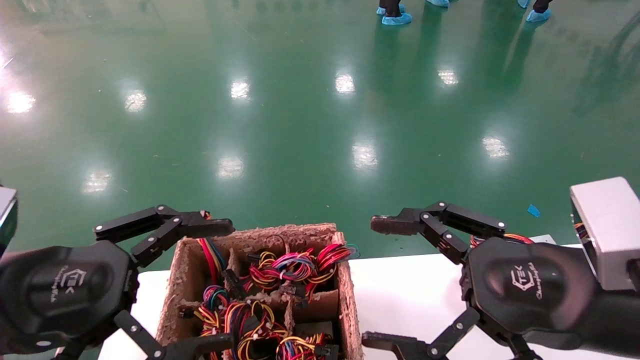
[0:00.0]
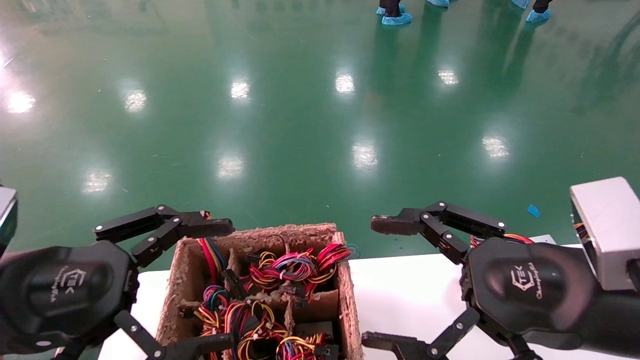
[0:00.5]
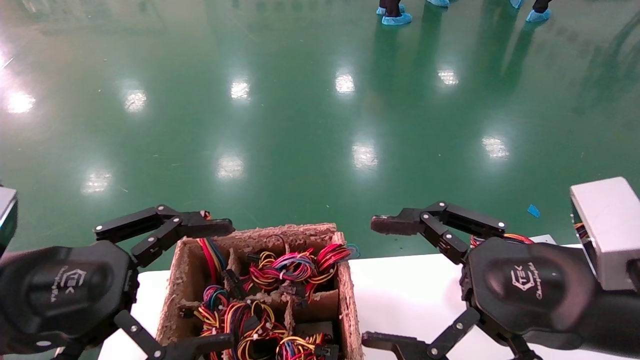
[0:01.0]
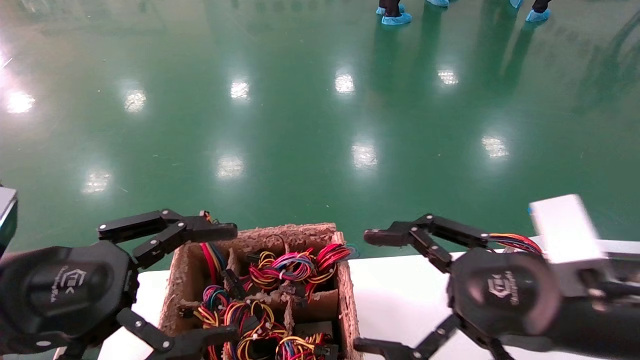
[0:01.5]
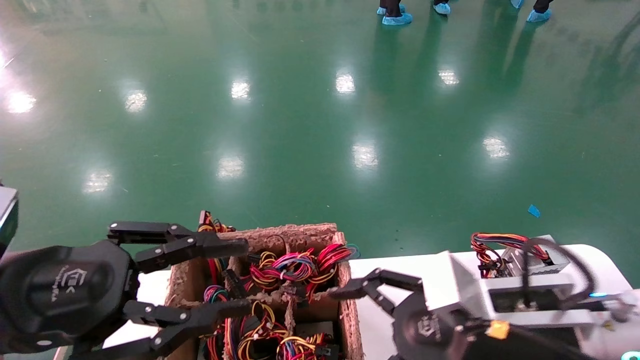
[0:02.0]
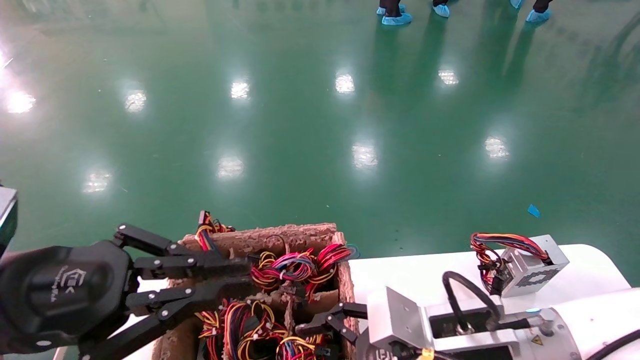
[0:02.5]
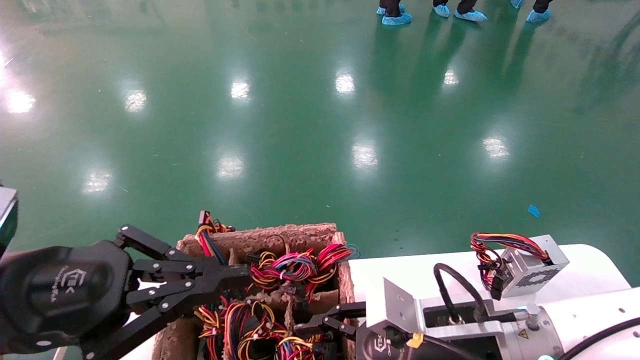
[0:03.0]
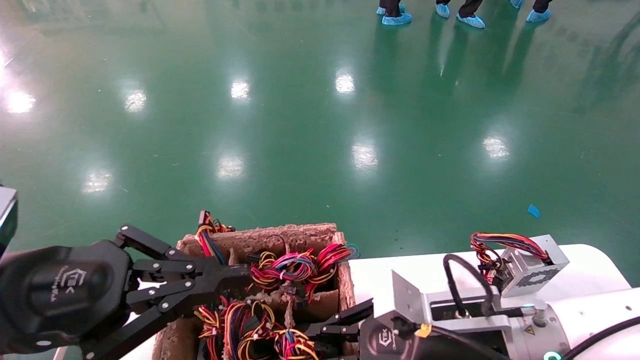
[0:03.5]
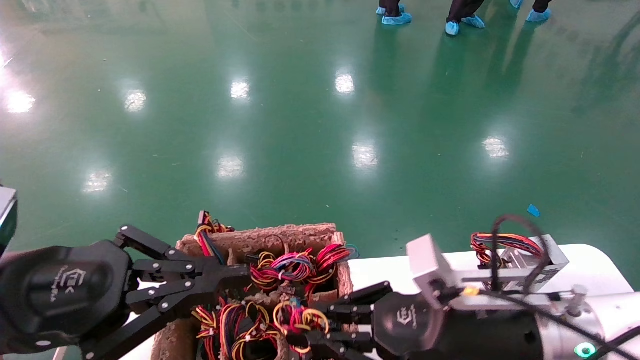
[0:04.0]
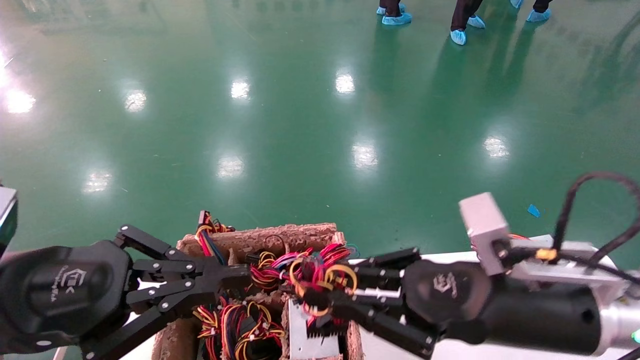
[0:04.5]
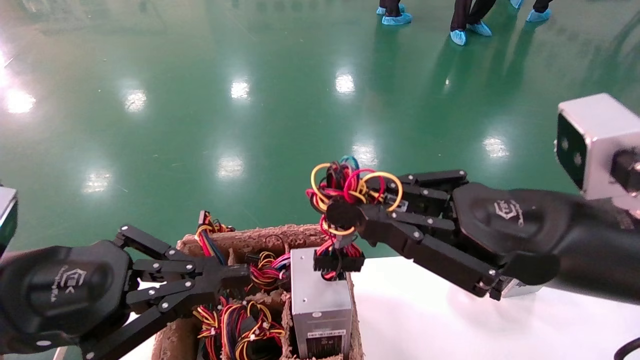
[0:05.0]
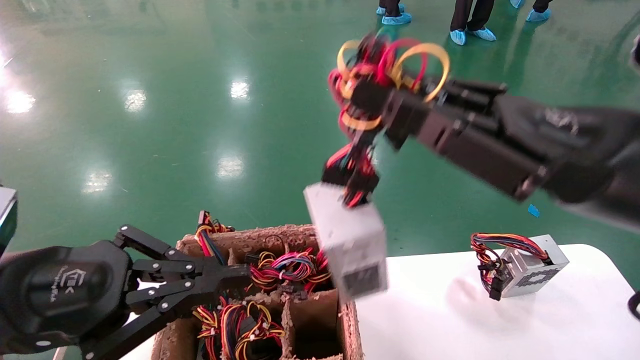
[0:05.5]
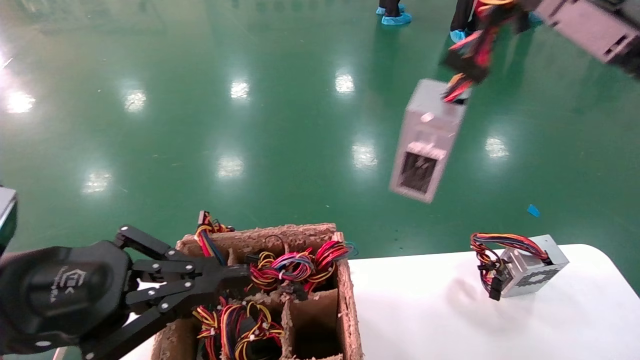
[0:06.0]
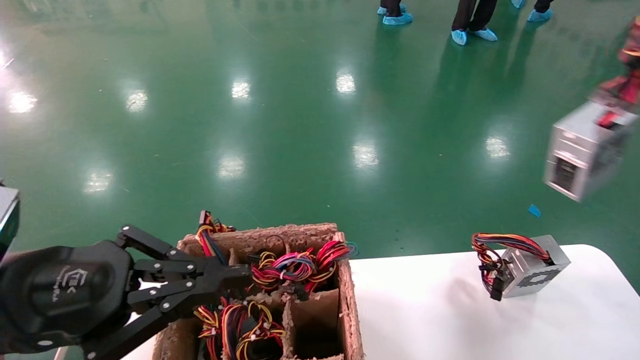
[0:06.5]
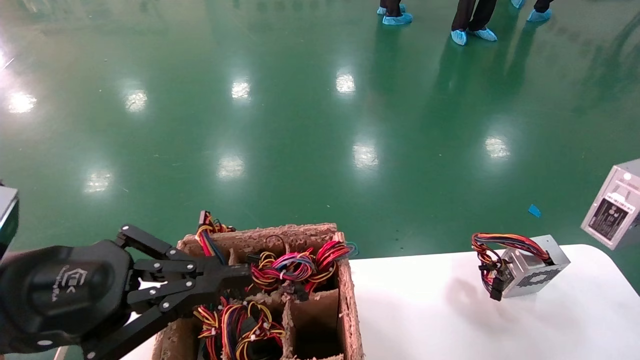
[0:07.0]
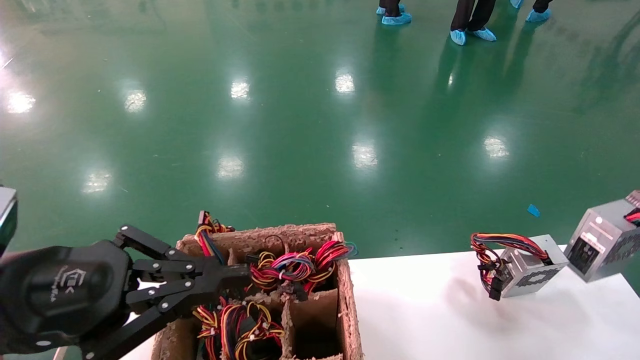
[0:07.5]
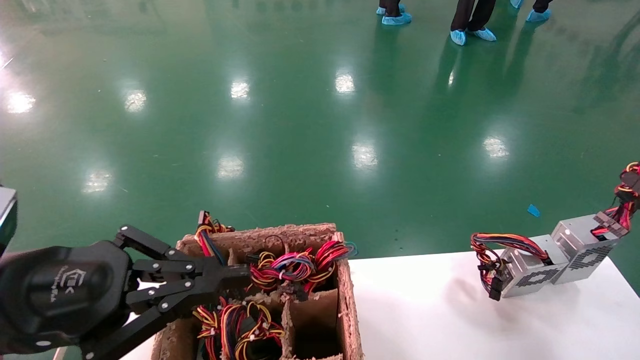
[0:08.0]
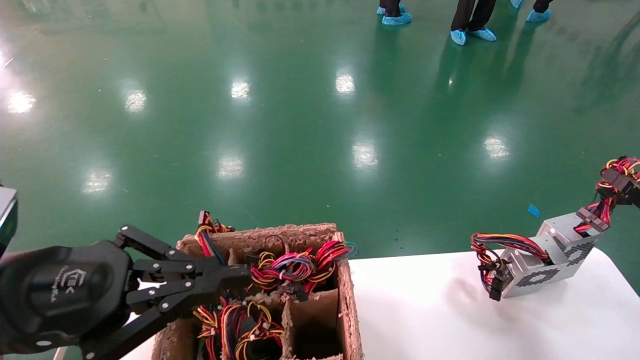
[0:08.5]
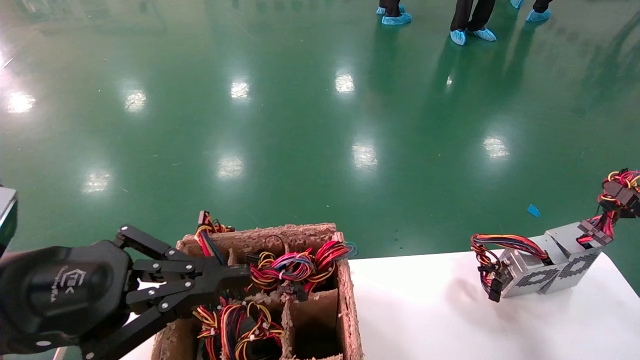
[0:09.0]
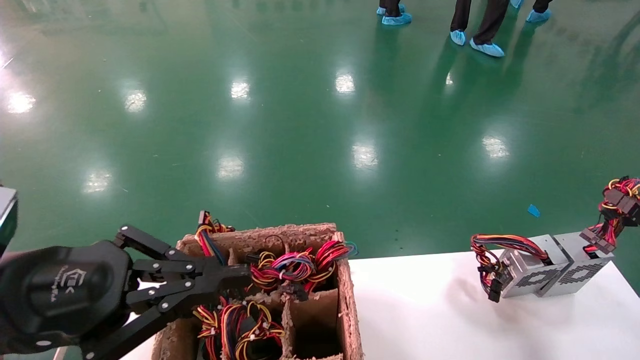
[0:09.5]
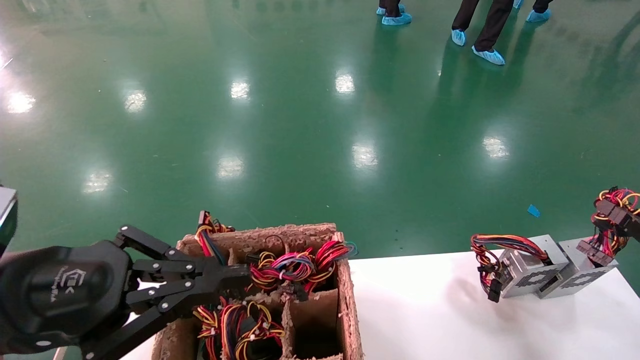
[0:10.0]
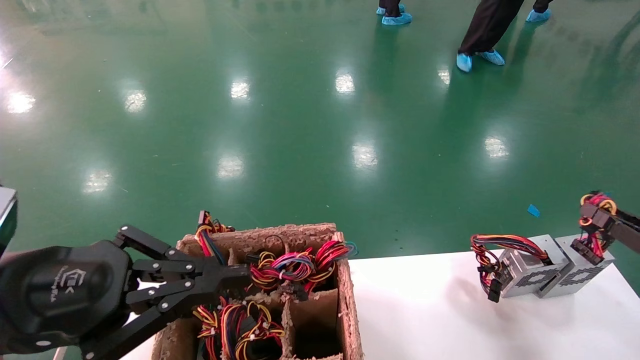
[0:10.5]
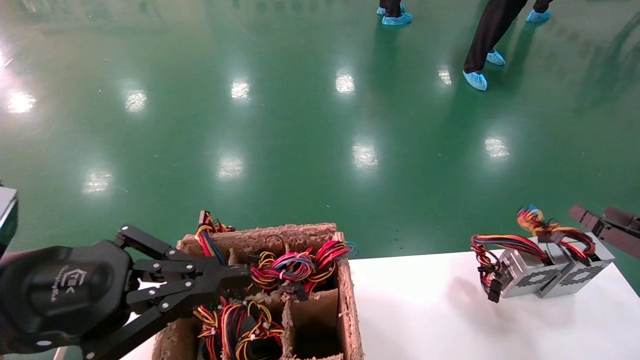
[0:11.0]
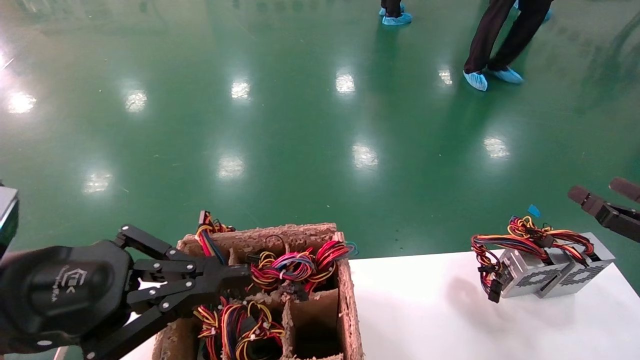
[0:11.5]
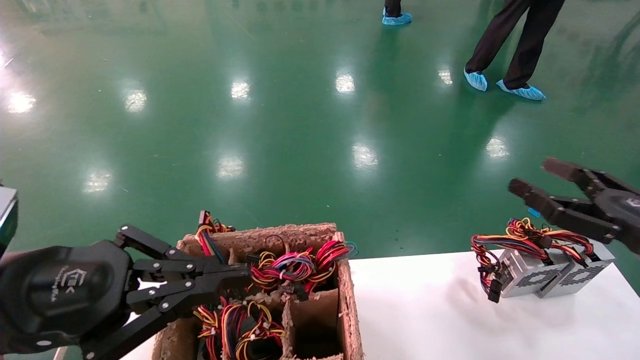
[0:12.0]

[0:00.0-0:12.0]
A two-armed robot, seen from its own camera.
Step, 0:02.0 to 0:03.5: Grab the main unit power supply from the containment box.
Step, 0:04.0 to 0:10.0: Place the main unit power supply in the designated area.
0:00.0 to 0:02.0: The right gripper shifts roughly 5 cm downward, while the left gripper closes up.
0:02.0 to 0:04.0: The right gripper closes; the left gripper closes up.
0:04.0 to 0:06.0: The right gripper shifts approximately 25 cm upward and to the right.
0:06.0 to 0:08.0: The right gripper is displaced to the right and downward by some 25 cm.
0:08.0 to 0:10.0: There are only small adjustments of the grippers.
0:10.0 to 0:12.0: The right gripper heads to the left and upward, covering approximately 15 cm, and opens.

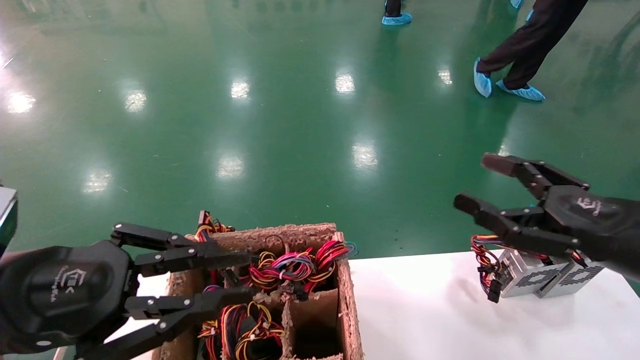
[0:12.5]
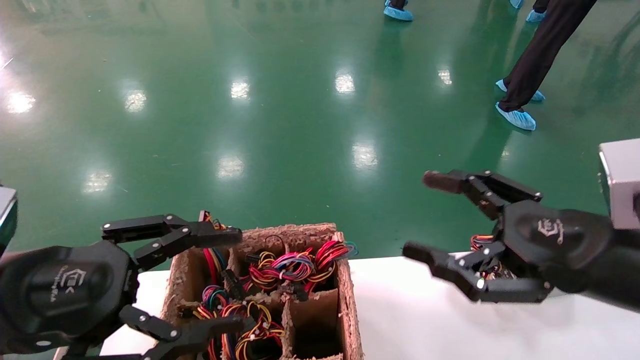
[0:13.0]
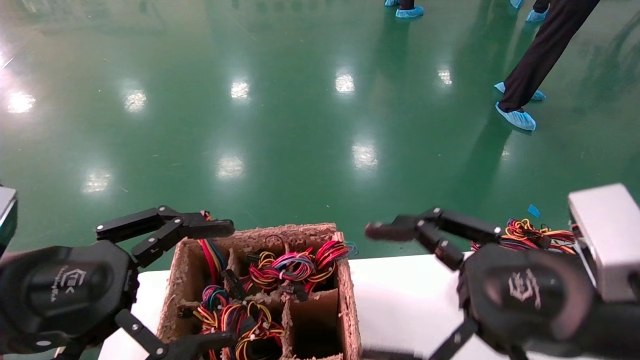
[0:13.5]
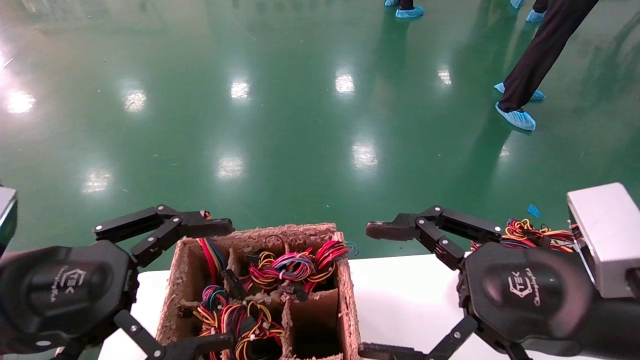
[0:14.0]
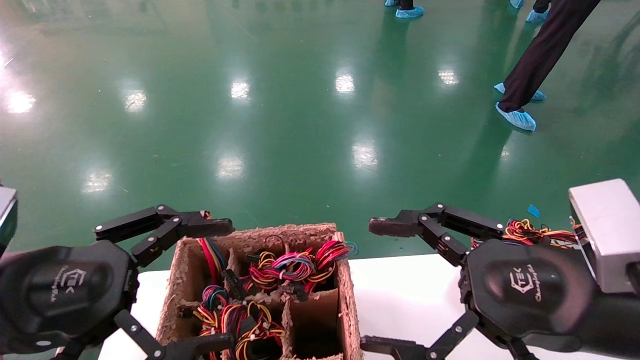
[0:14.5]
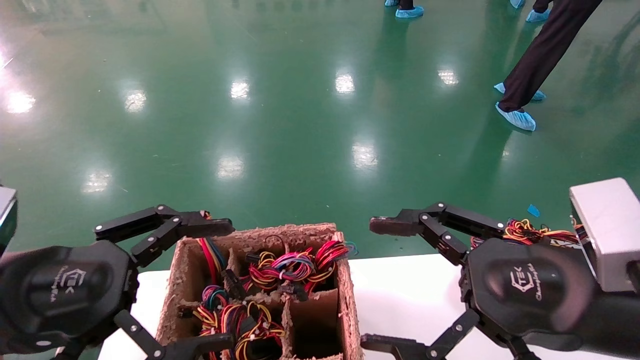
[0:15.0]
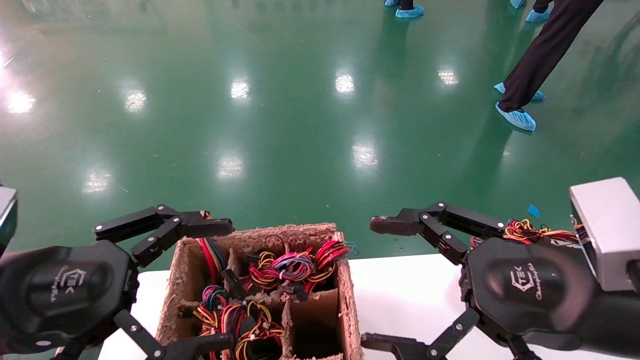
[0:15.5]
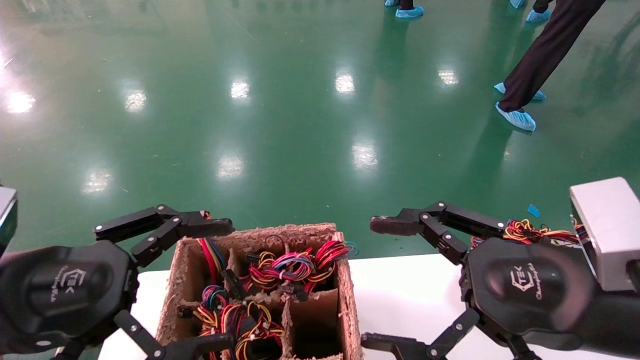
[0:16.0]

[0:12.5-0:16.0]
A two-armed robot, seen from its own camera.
0:12.5 to 0:14.5: The left gripper opens up. Meanwhile the right gripper heads to the left and backward, covering roughly 10 cm.
0:14.5 to 0:16.0: Neither gripper changes place.

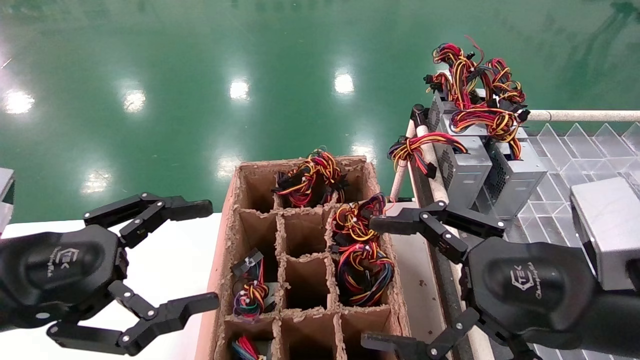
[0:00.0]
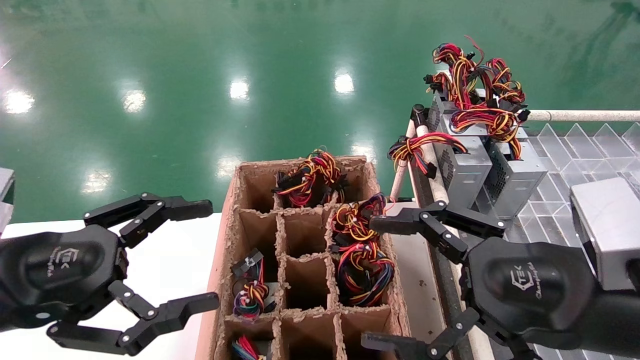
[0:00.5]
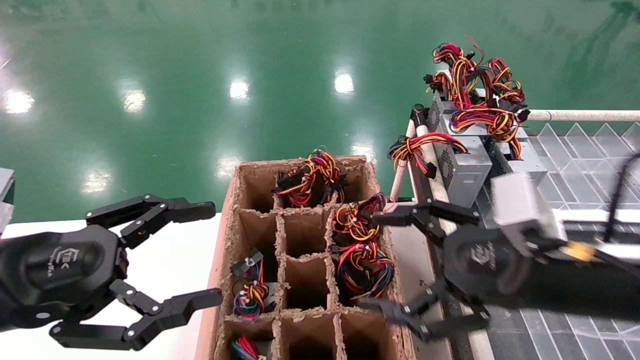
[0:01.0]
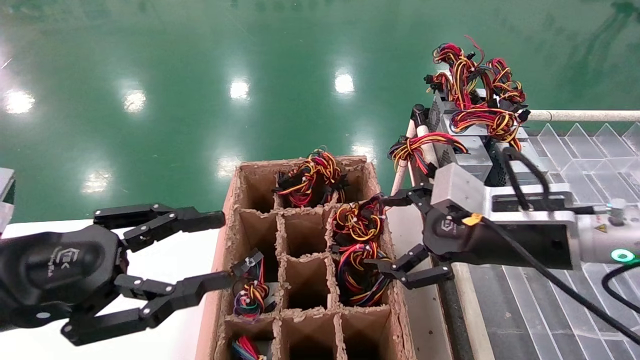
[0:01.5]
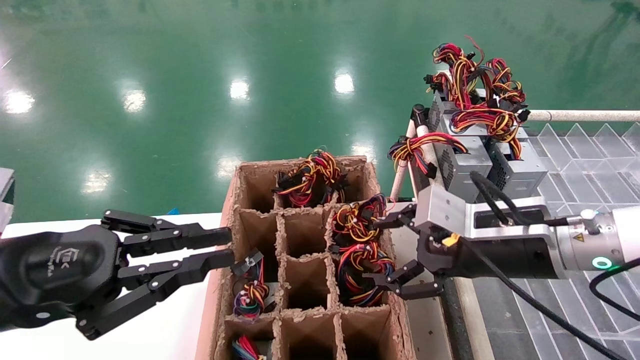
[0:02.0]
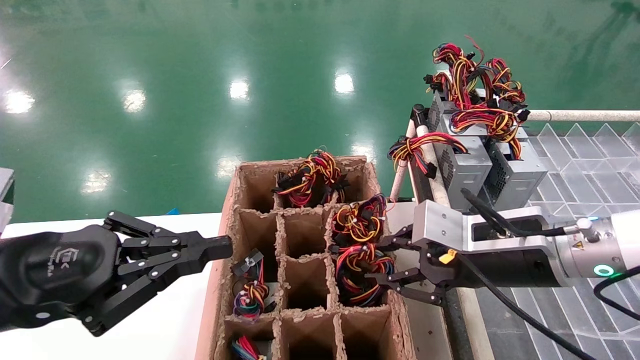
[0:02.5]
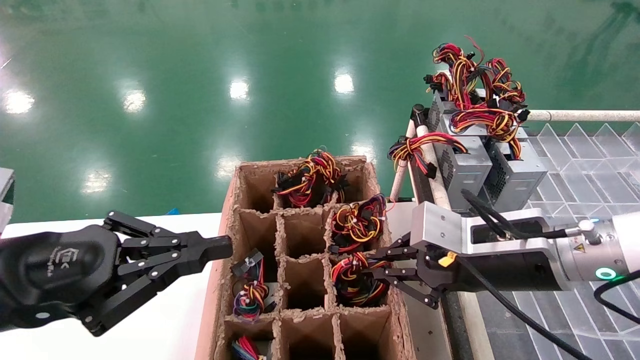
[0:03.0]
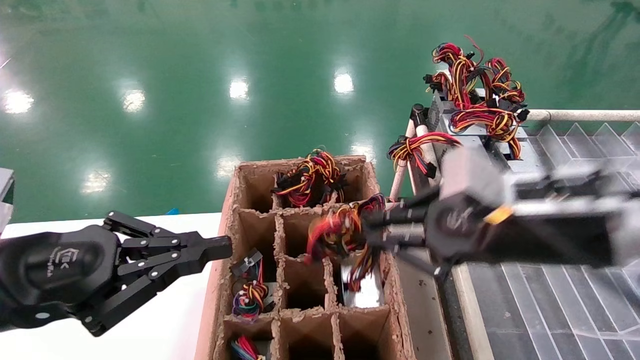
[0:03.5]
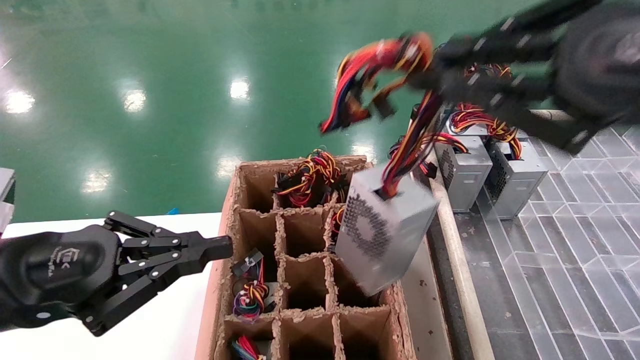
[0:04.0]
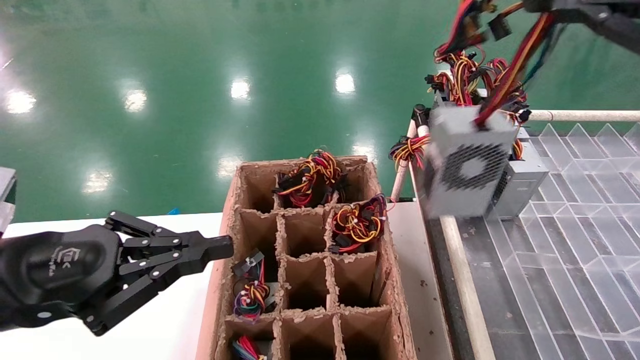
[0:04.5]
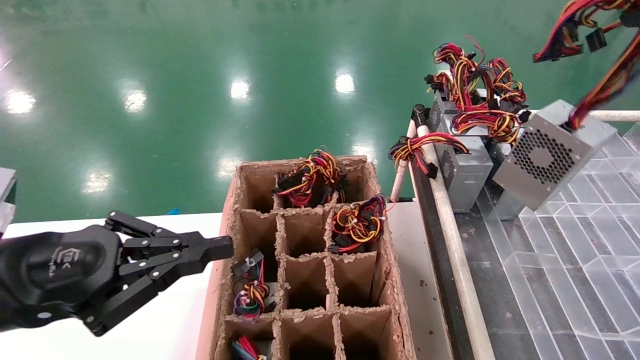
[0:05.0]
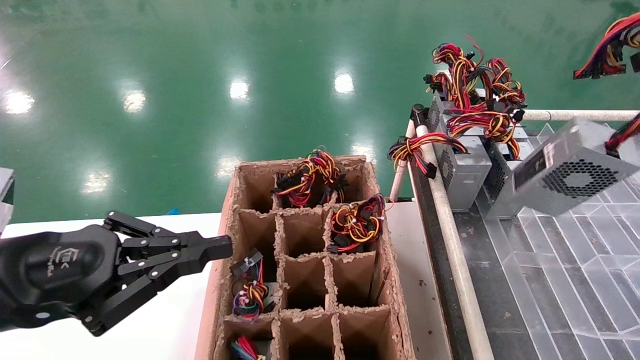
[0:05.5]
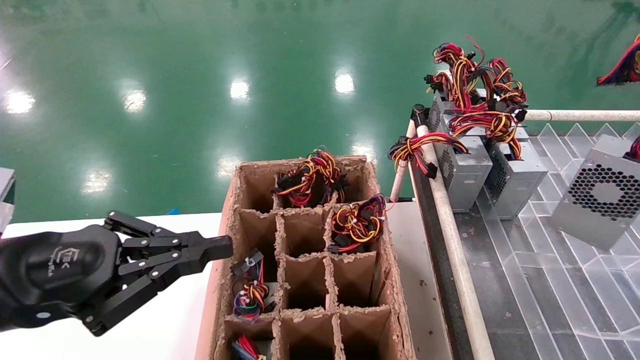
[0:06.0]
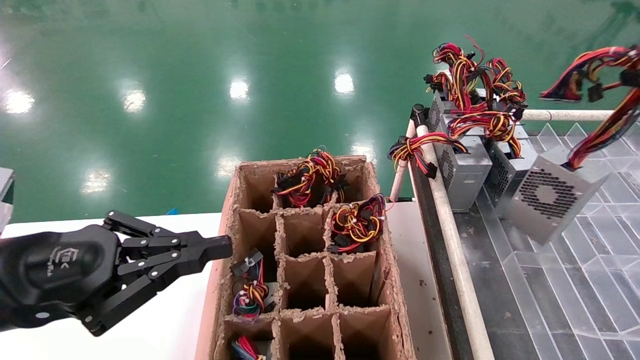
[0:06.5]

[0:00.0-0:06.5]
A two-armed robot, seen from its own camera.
Step, 0:01.5 to 0:03.0: Grab the main unit power supply from the containment box.
0:00.0 to 0:02.0: The right gripper goes some 10 cm forward; the left gripper closes its fingers.
0:02.0 to 0:04.5: The right gripper goes approximately 30 cm upward, backward and to the right, and closes up.
0:04.5 to 0:06.5: The right gripper is displaced to the right and downward by some 15 cm.
